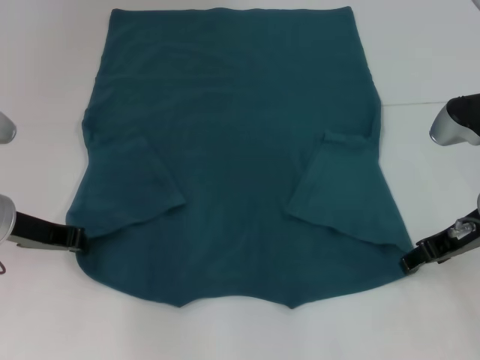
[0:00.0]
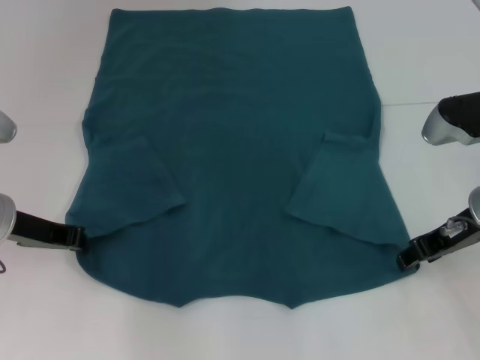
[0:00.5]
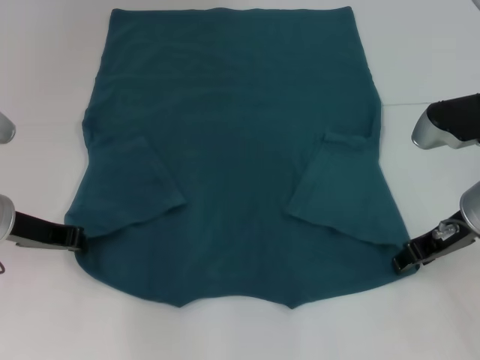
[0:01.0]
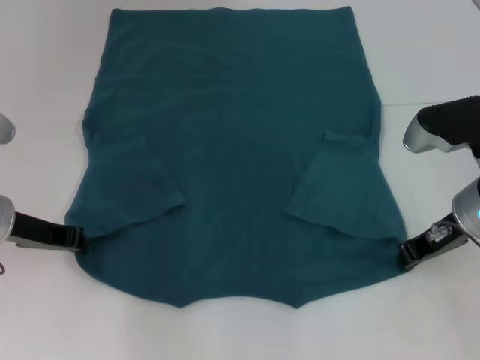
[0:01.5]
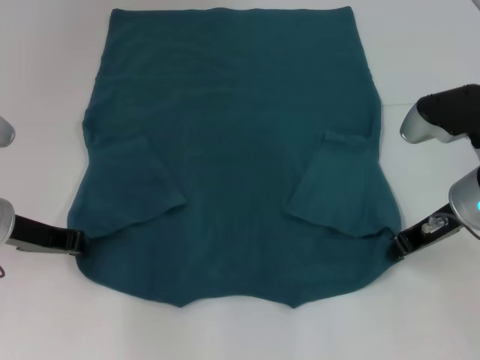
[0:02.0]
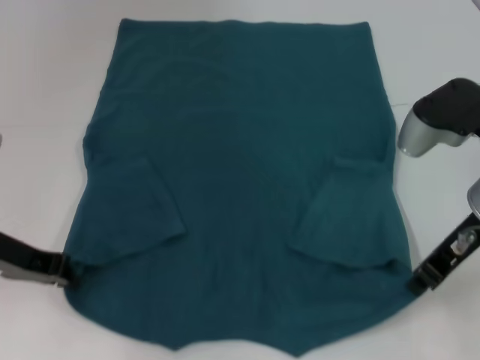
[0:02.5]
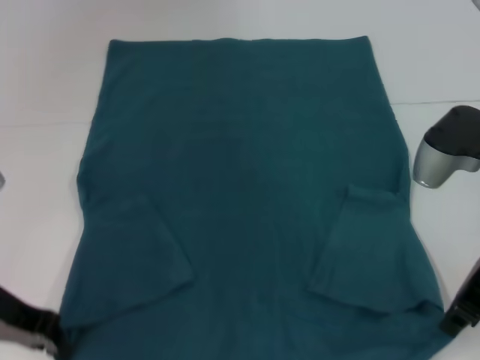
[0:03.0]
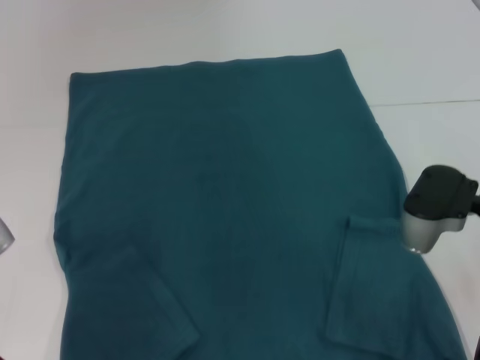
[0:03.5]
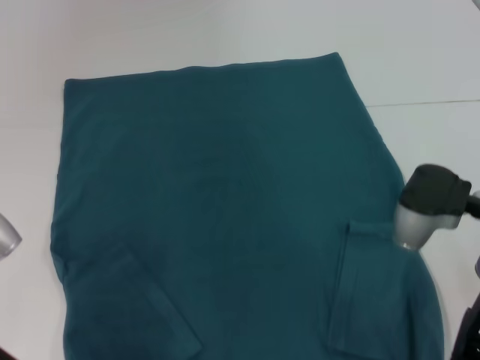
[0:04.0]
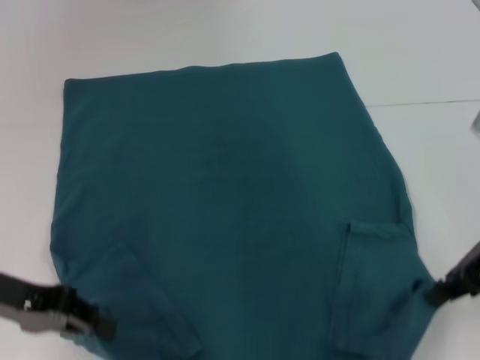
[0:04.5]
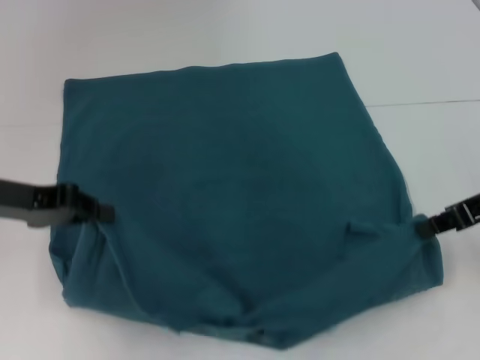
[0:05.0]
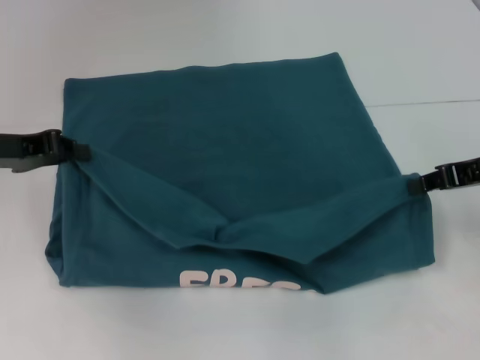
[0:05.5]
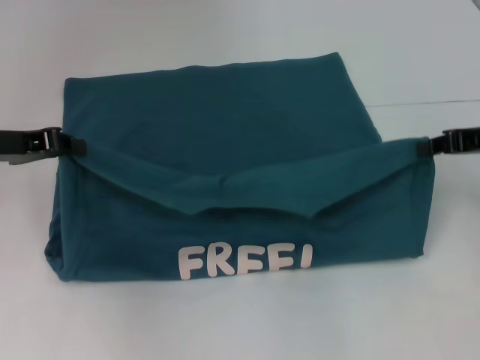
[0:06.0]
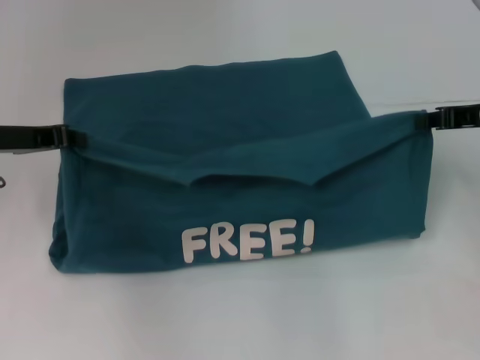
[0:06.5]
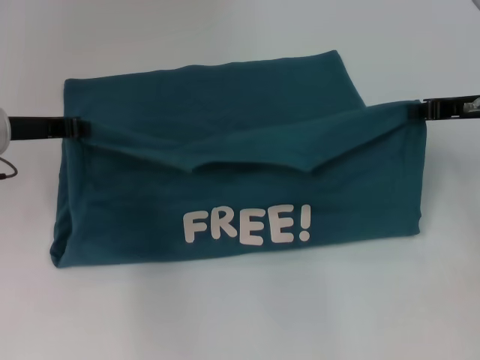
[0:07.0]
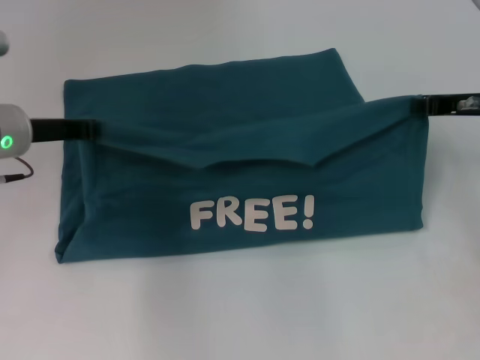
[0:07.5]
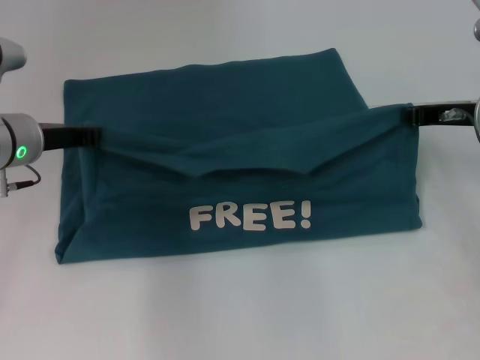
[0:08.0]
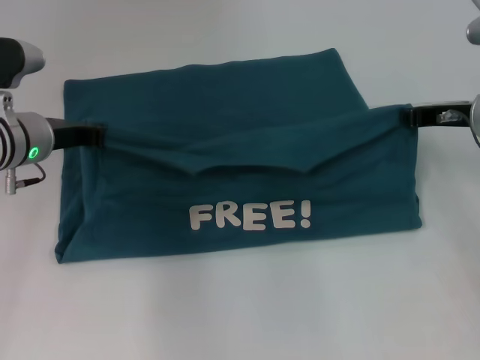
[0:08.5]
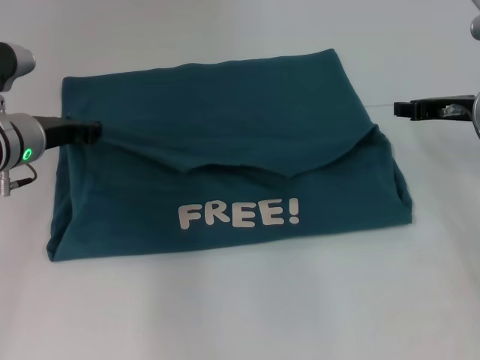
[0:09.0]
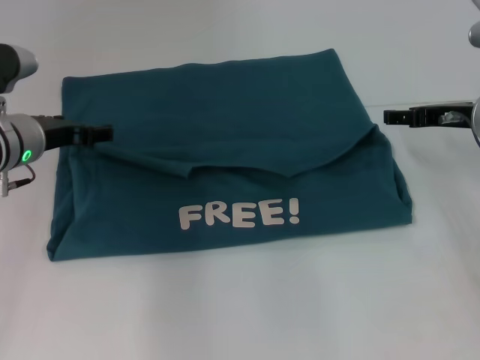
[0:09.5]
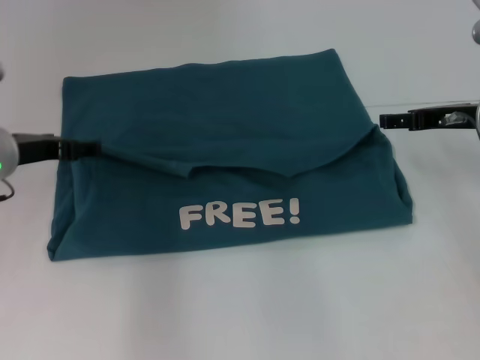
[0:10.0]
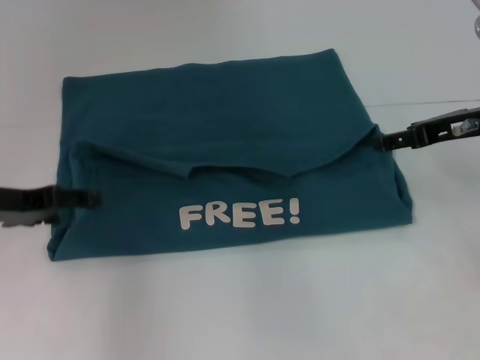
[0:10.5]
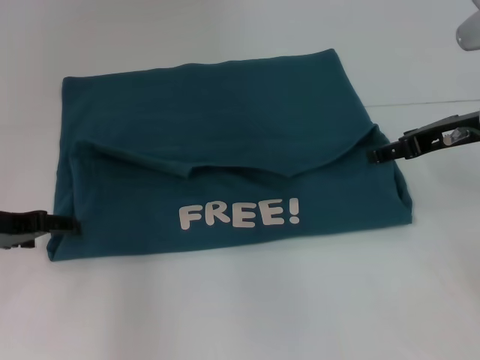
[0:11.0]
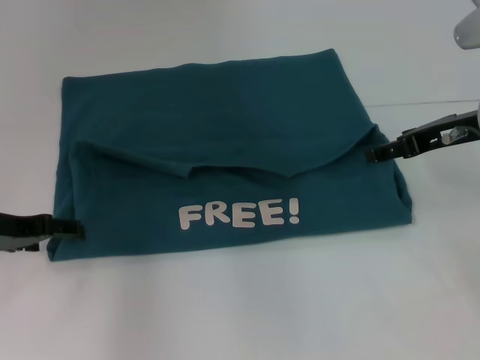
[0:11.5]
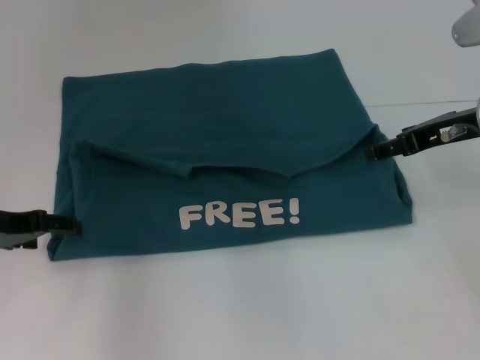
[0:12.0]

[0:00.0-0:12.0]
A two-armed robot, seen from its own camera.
Step, 0:02.0 to 0:09.5: Fold the clothes to the left.
Step, 0:02.0 to 0:09.5: Fold the clothes to the right.
0:00.0 to 0:02.0: The right gripper closes its fingers.
0:02.0 to 0:04.0: The right gripper shifts some 5 cm backward, while the left gripper travels backward by some 10 cm.
0:04.0 to 0:06.0: The right gripper goes about 10 cm to the right and forward. Meanwhile the left gripper is displaced forward and upward by about 15 cm.
0:06.0 to 0:08.0: The left gripper goes approximately 5 cm to the right, while the right gripper shifts roughly 5 cm forward.
0:08.0 to 0:10.0: The right gripper opens its fingers, while the left gripper opens.
0:10.0 to 0:12.0: The left gripper is displaced backward by roughly 5 cm. The right gripper changes place by some 5 cm.

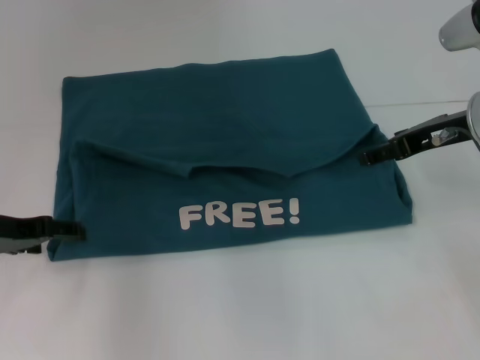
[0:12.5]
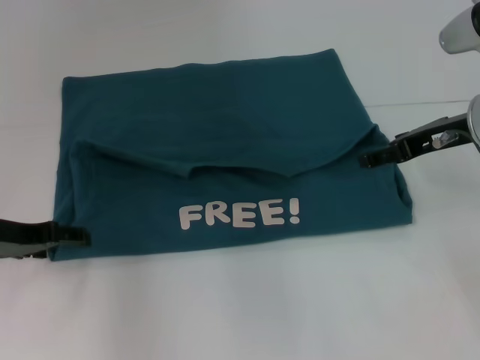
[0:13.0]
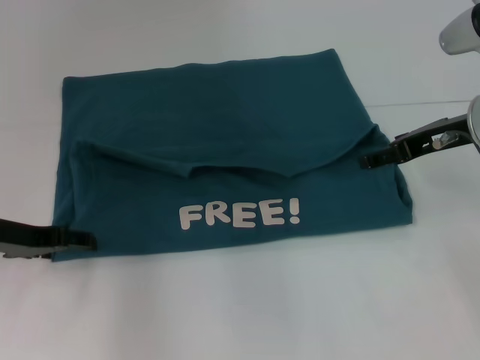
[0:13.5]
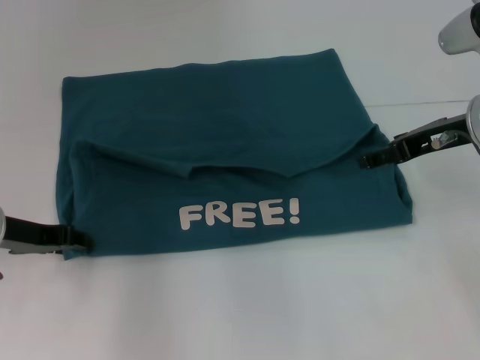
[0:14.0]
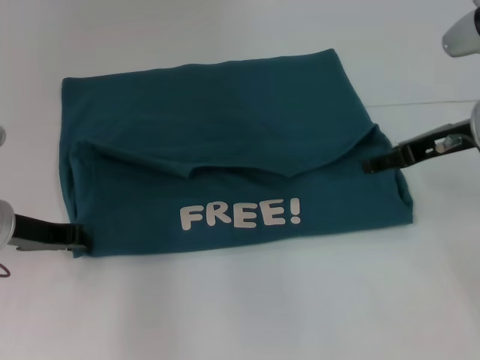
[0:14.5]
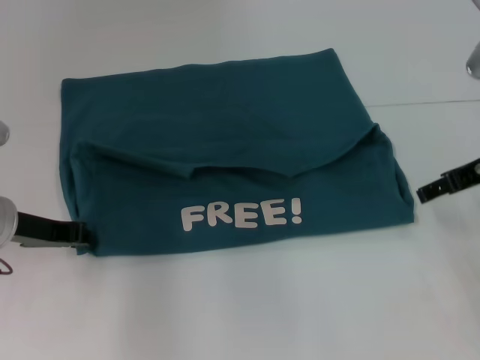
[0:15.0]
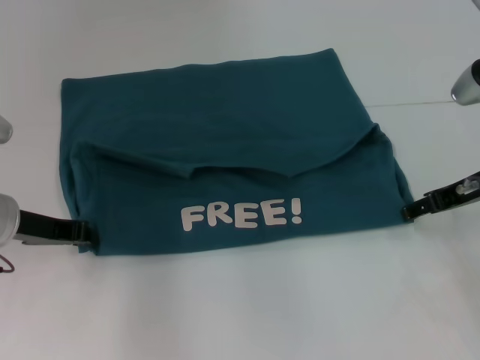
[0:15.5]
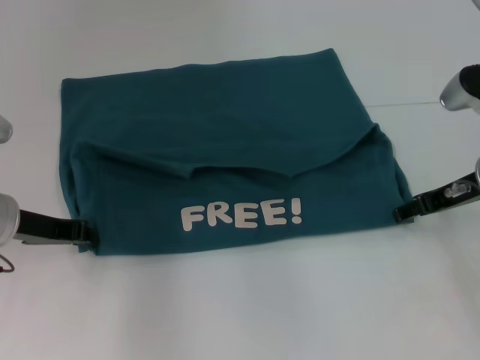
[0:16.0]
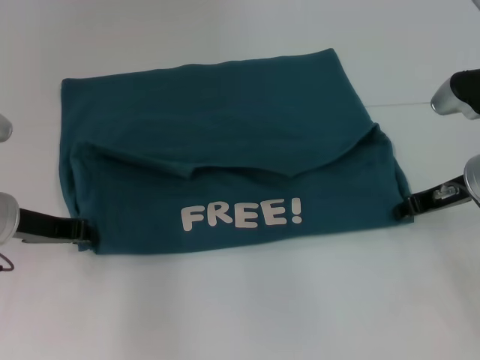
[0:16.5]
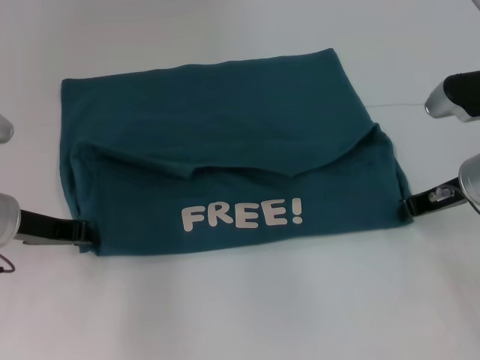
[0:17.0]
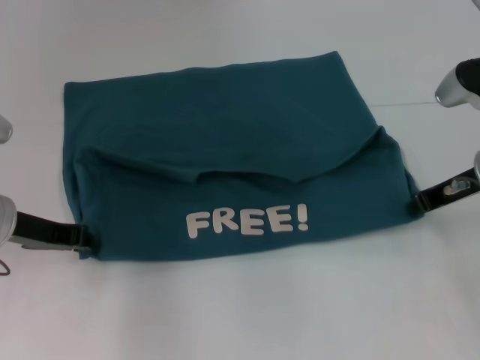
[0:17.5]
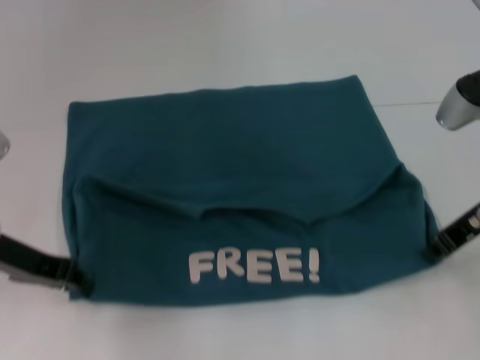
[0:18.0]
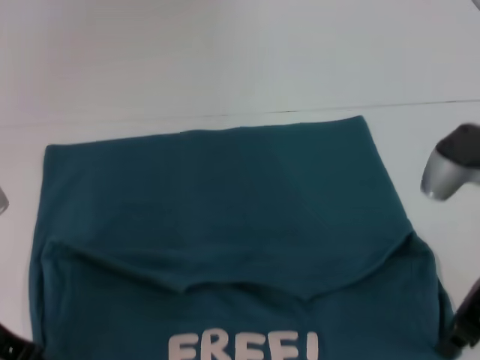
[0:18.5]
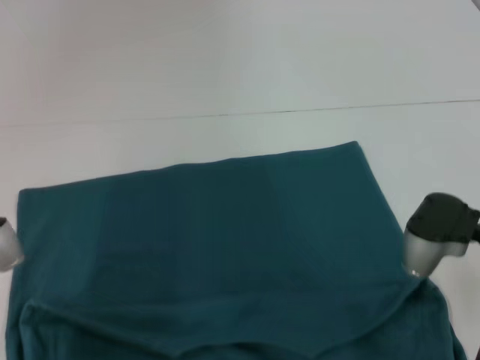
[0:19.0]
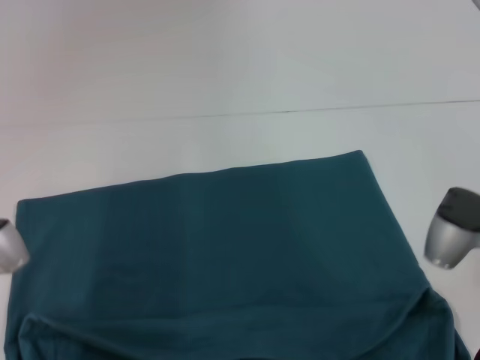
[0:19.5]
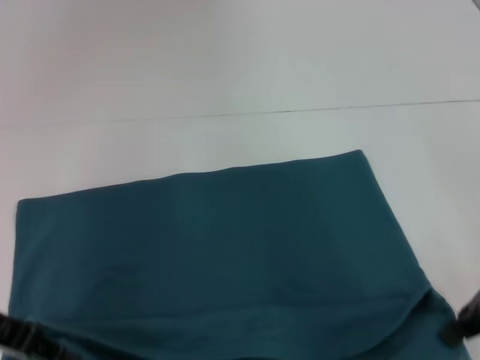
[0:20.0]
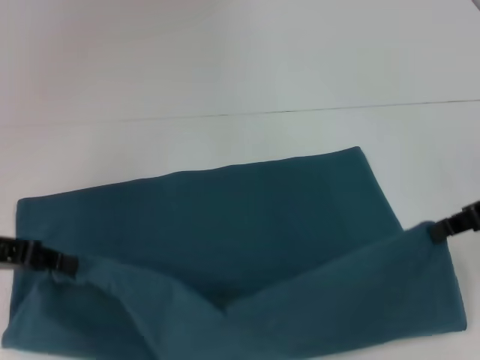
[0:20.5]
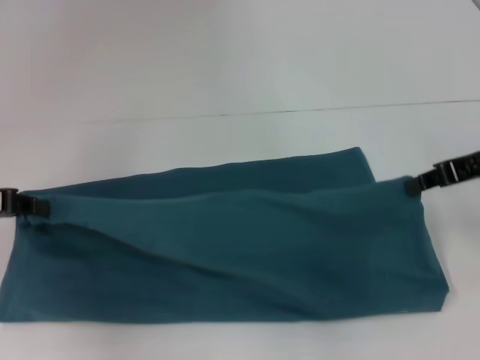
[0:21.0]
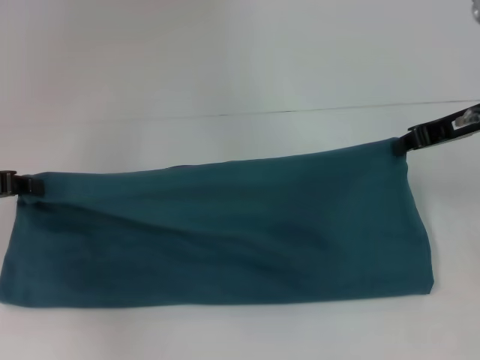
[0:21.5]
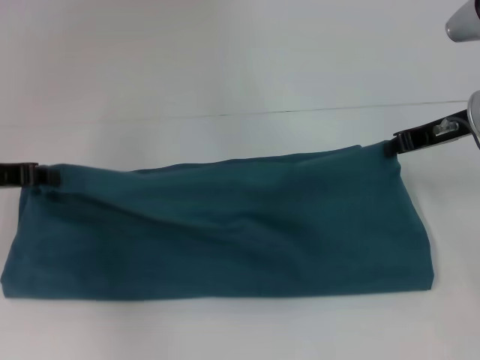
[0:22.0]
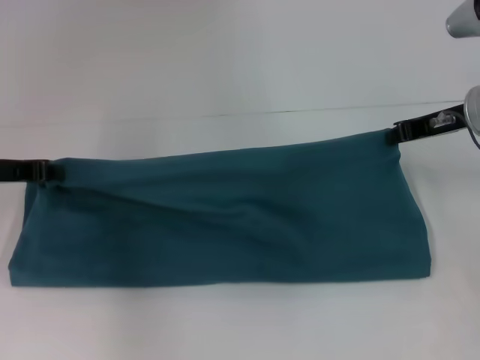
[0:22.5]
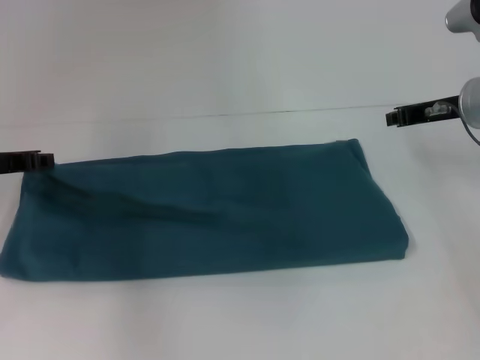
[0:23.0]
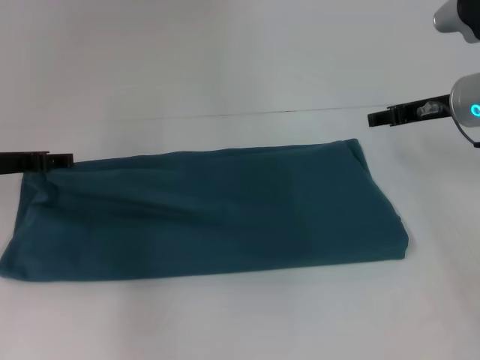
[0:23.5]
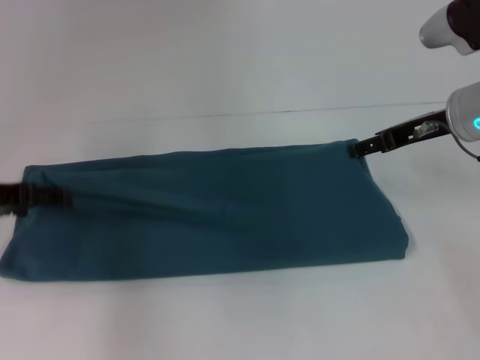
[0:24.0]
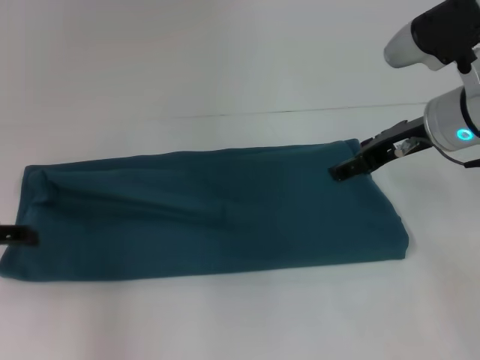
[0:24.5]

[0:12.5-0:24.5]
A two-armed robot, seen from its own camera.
Step, 0:12.5 to 0:19.0: Pull the clothes with your left hand.
Step, 0:12.5 to 0:19.0: Pull the clothes with your right hand.
Step, 0:19.5 to 0:23.0: Fold the clothes to the left.
Step, 0:19.5 to 0:23.0: Fold the clothes to the right.
0:12.5 to 0:14.5: The left gripper closes its fingers.
0:14.5 to 0:16.5: The right gripper travels downward by about 5 cm, and closes its fingers.
0:16.5 to 0:18.5: Both grippers move backward, about 5 cm. The right gripper closes.
0:18.5 to 0:20.5: The right gripper heads to the right, covering some 5 cm.
0:20.5 to 0:22.5: Both grippers travel together forward, about 10 cm.
0:22.5 to 0:24.5: The left gripper travels backward by approximately 5 cm, and opens up, while the right gripper shifts some 5 cm to the left, and opens.

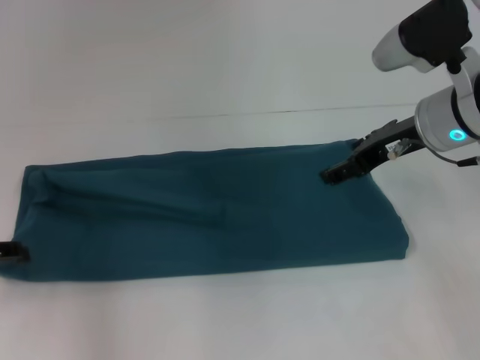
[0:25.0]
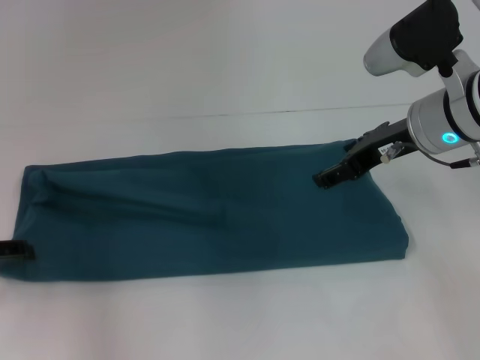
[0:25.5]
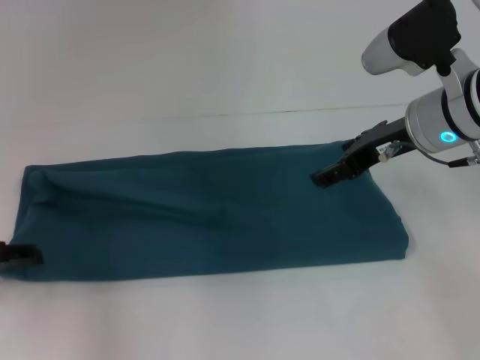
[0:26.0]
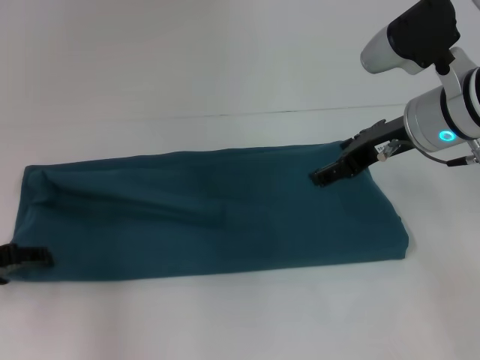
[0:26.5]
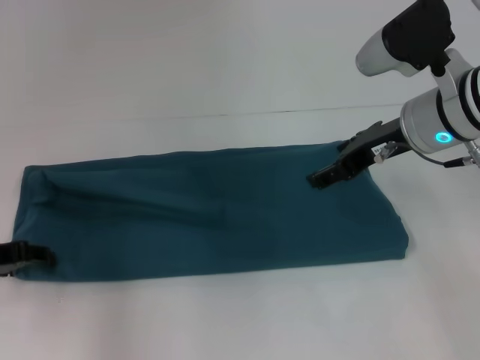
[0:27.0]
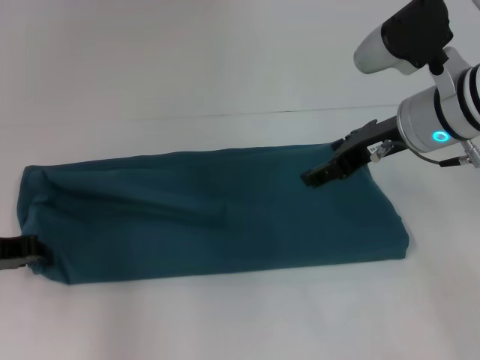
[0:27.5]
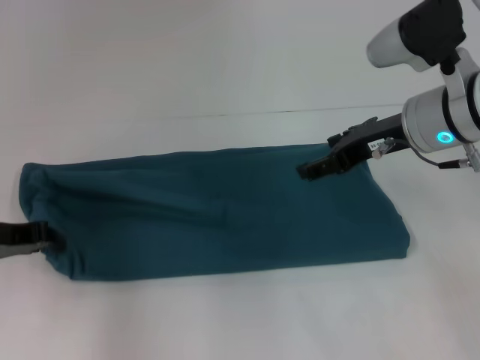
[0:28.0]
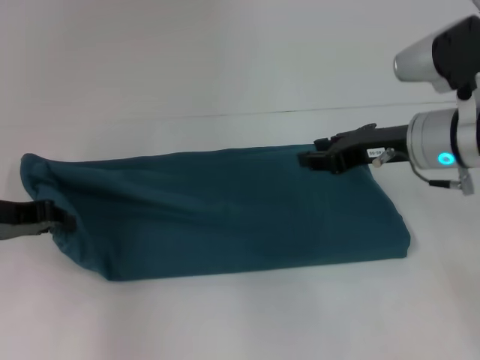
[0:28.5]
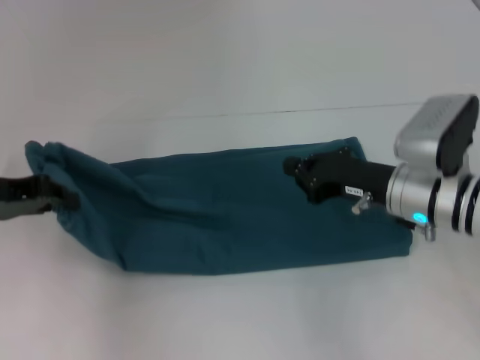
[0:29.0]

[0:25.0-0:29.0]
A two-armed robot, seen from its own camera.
0:25.0 to 0:27.0: The grippers make only small movements.
0:27.0 to 0:29.0: The left gripper moves upward, some 5 cm, and closes up. Meanwhile the right gripper moves downward, some 10 cm, and closes its fingers.
